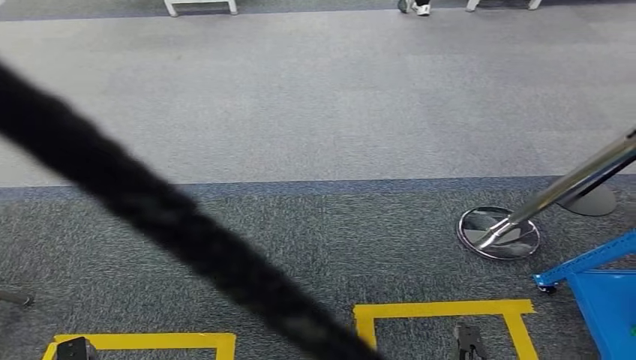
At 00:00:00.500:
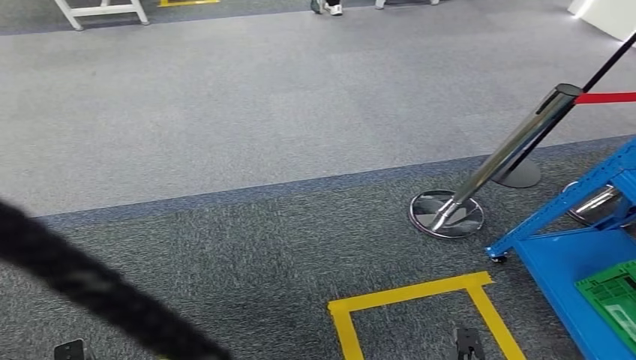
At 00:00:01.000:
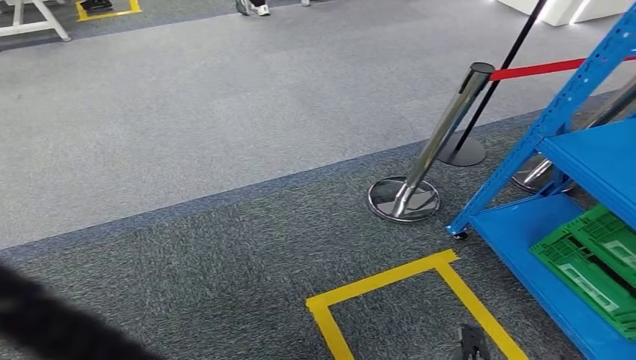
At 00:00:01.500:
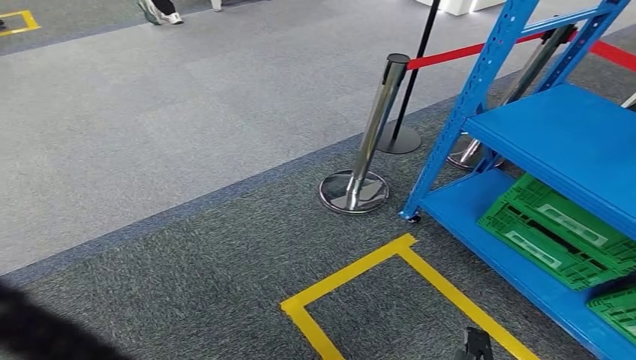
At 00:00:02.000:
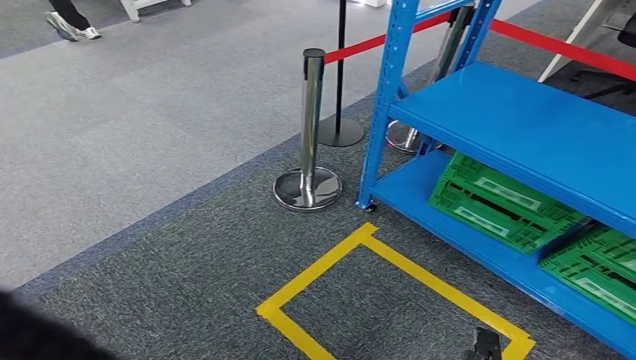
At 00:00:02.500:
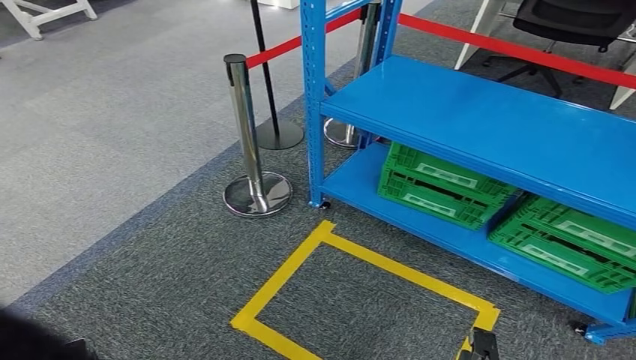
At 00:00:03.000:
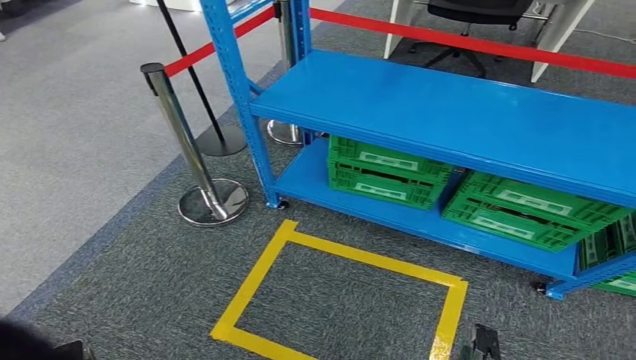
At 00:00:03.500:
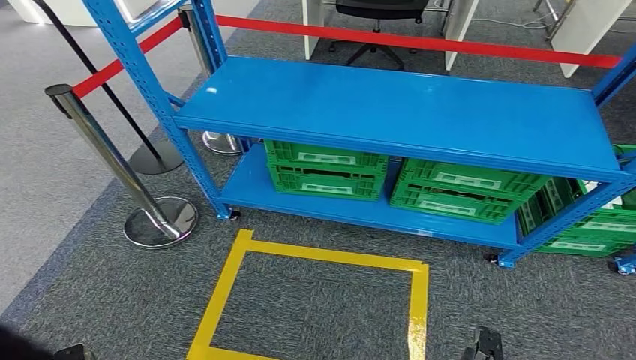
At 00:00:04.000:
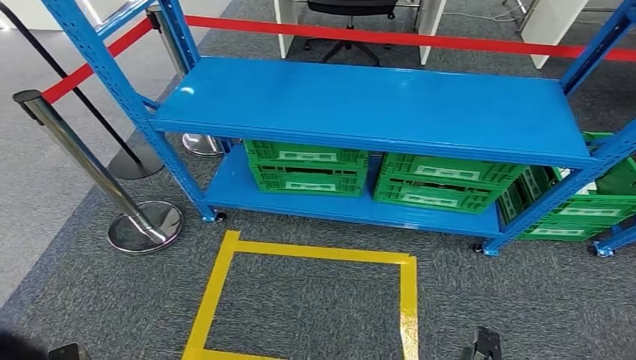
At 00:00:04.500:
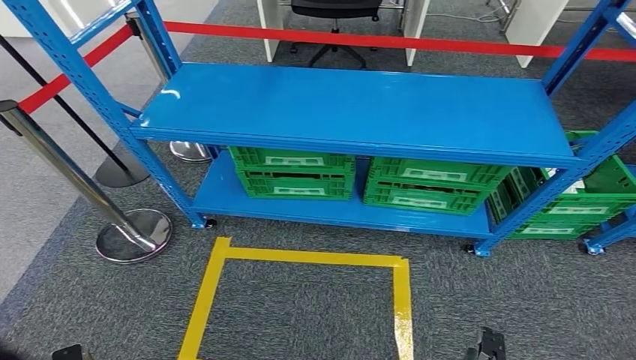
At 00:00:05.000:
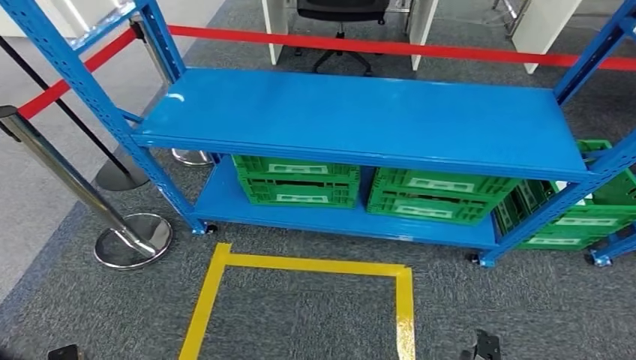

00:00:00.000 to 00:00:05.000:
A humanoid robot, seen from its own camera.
Step, 00:00:00.000 to 00:00:05.000: Move to the initial position of the workbench.

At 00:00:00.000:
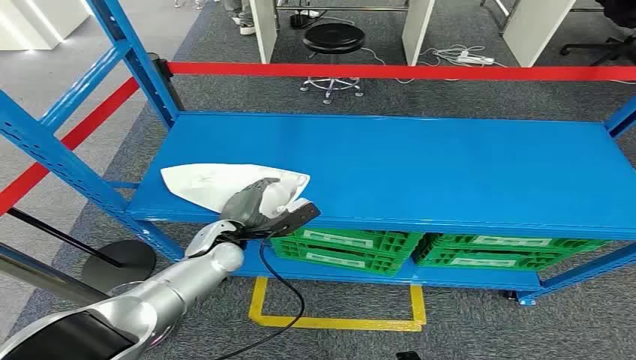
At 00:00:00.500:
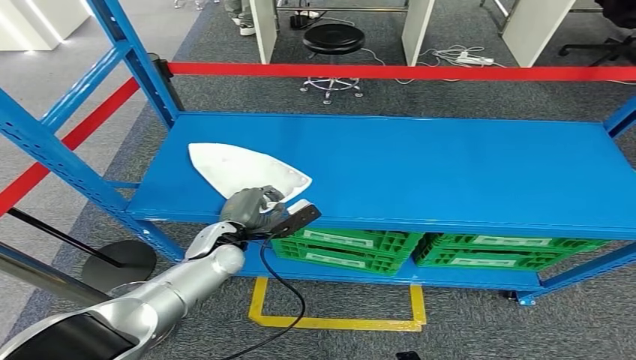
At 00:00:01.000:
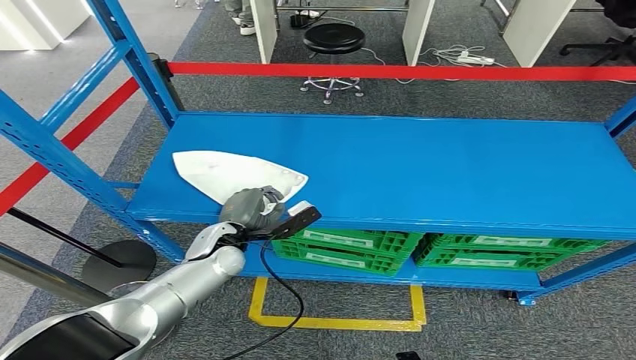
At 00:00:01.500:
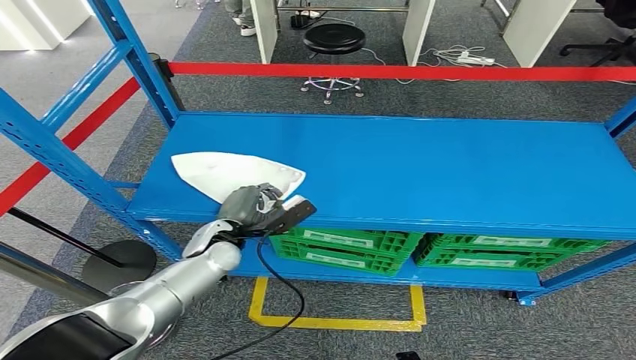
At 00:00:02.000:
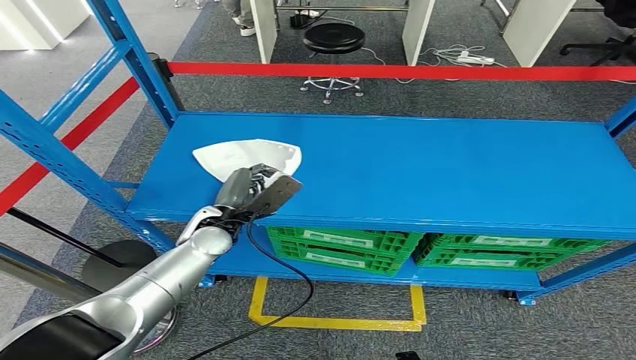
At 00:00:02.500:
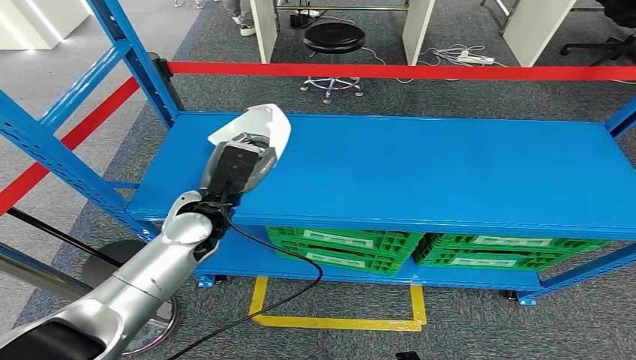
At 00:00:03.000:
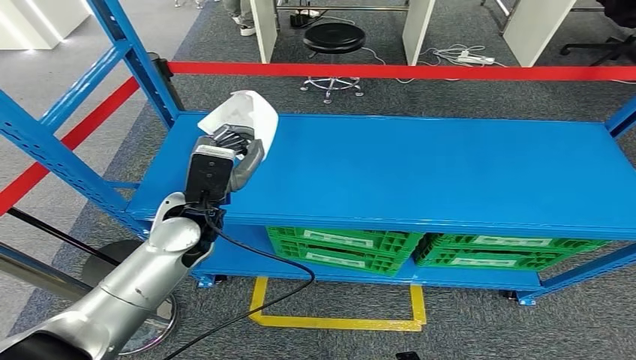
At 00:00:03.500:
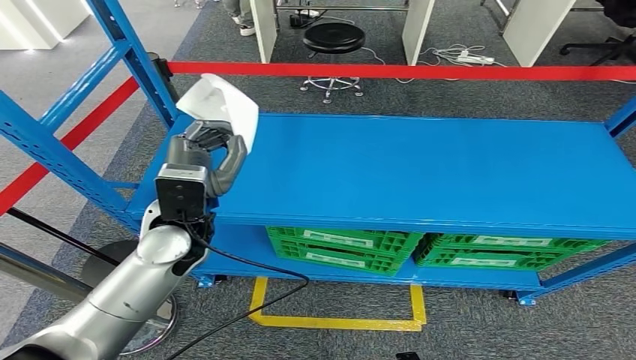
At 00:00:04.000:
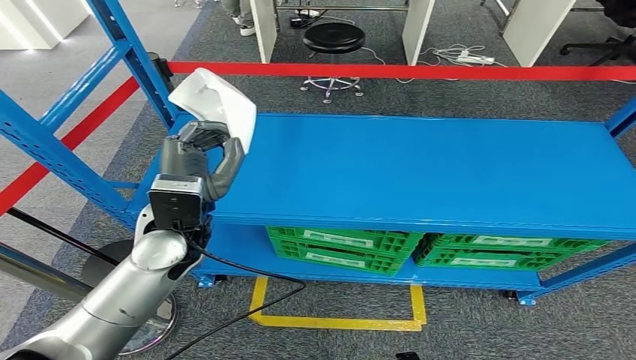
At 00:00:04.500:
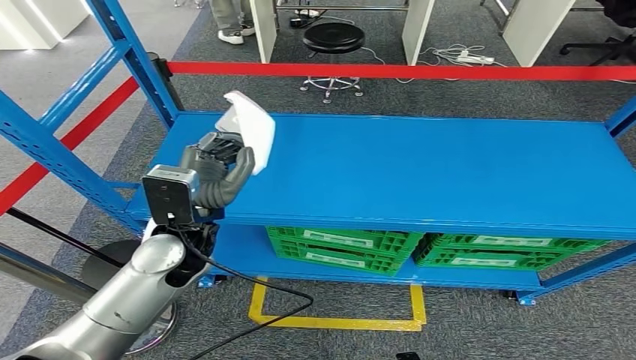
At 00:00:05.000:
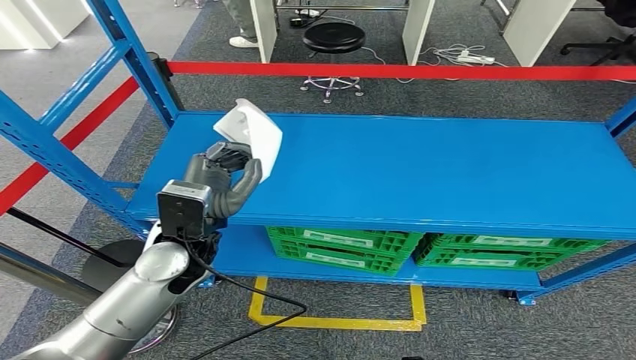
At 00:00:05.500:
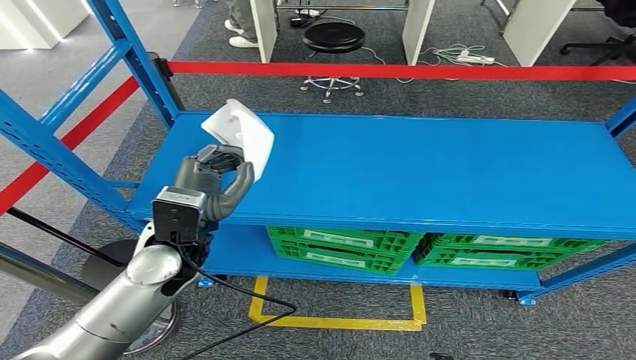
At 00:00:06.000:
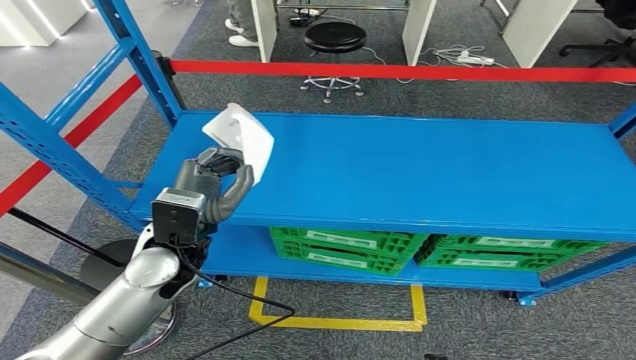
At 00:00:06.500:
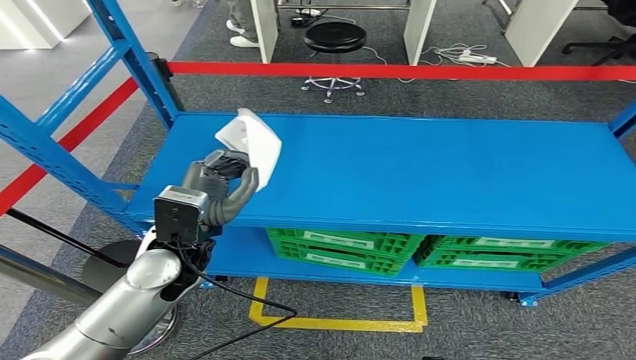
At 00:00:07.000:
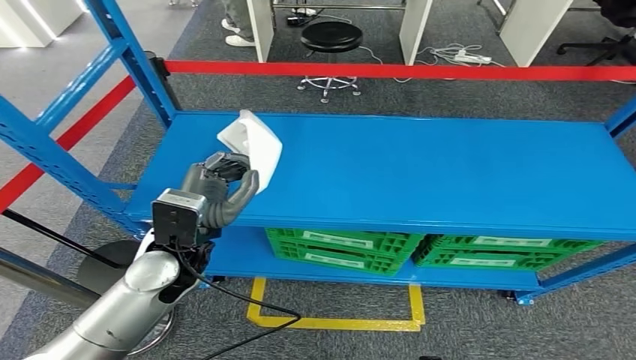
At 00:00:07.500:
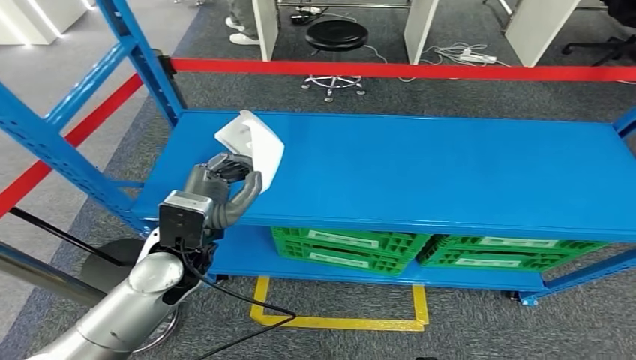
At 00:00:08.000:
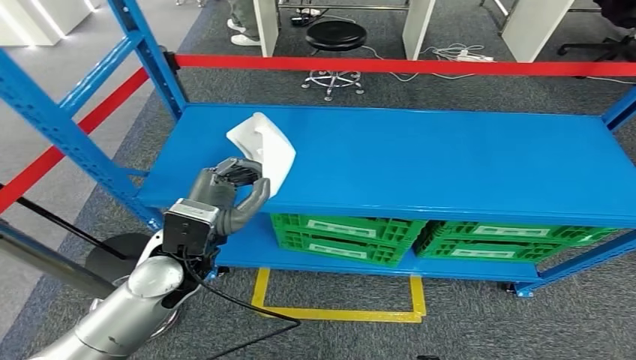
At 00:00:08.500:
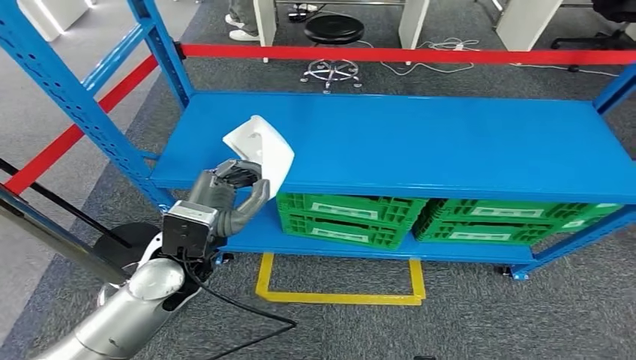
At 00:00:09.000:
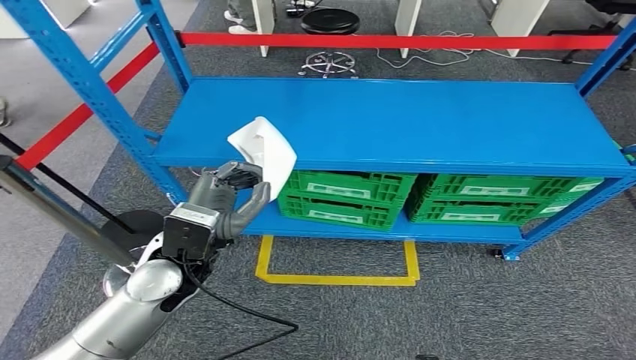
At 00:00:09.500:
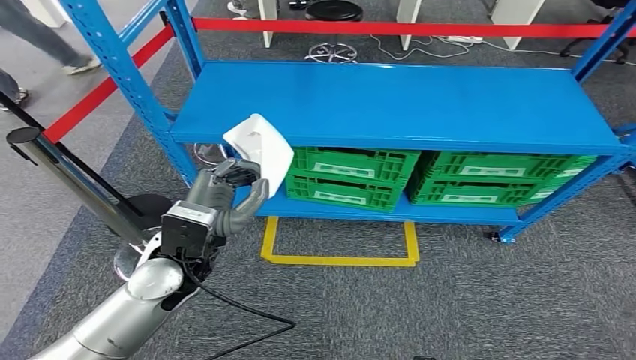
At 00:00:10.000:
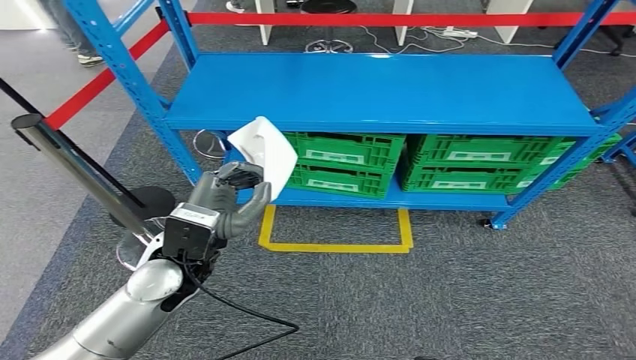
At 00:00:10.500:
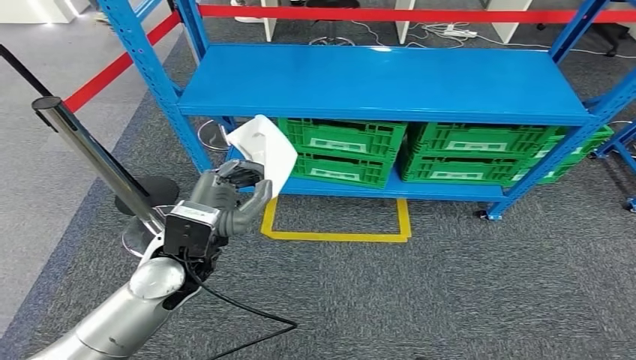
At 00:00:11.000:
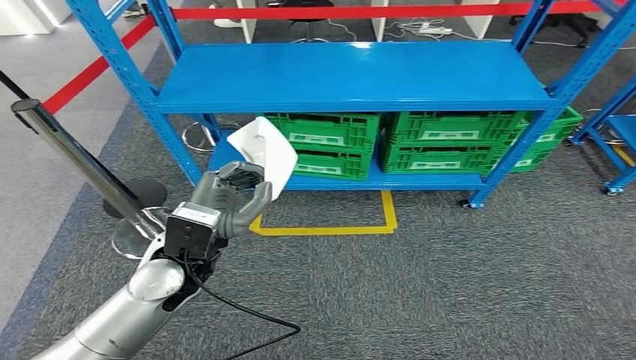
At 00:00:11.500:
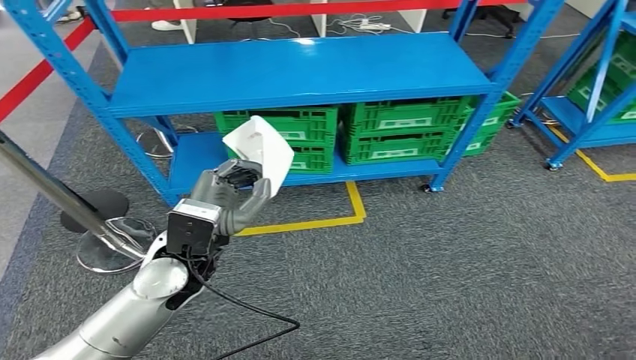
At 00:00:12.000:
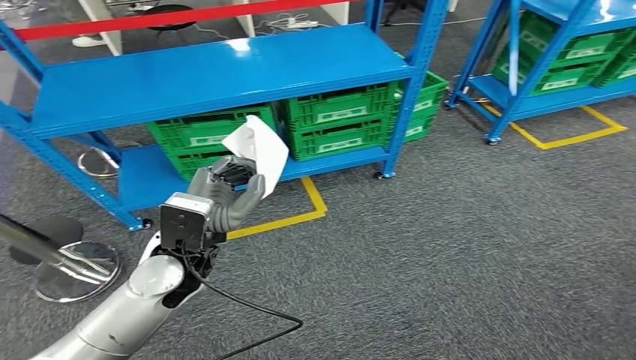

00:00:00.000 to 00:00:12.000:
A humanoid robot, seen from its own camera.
Step, 00:00:00.000 to 00:00:04.000: Take small components from the rack.
00:00:02.000 to 00:00:04.000: The left hand is displaced upward by roughly 10 cm.

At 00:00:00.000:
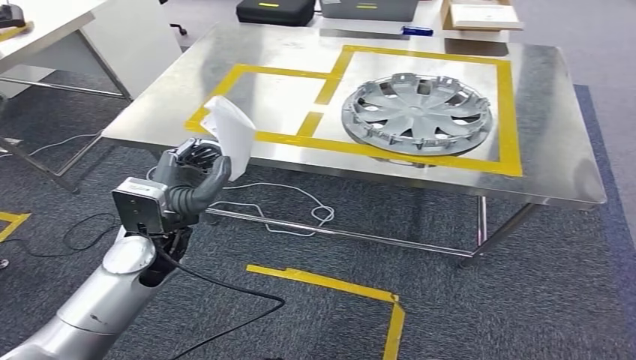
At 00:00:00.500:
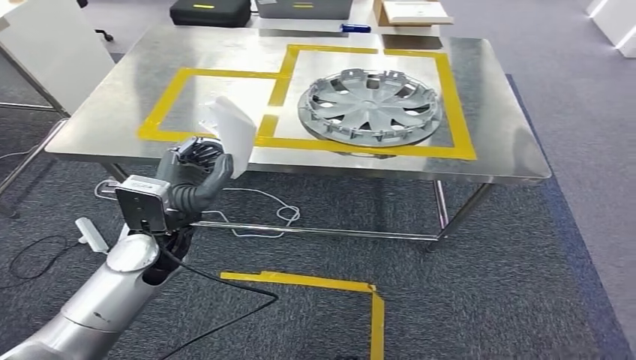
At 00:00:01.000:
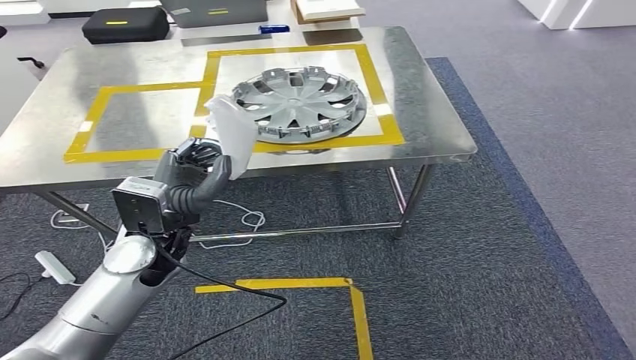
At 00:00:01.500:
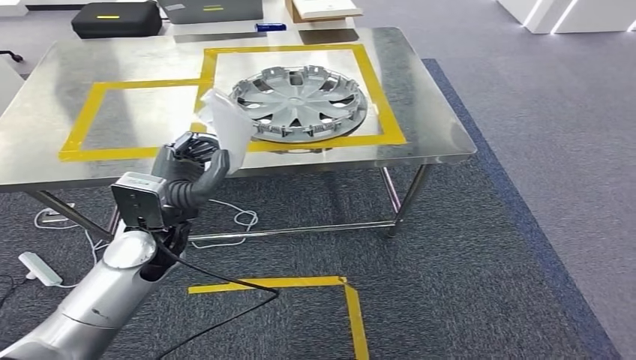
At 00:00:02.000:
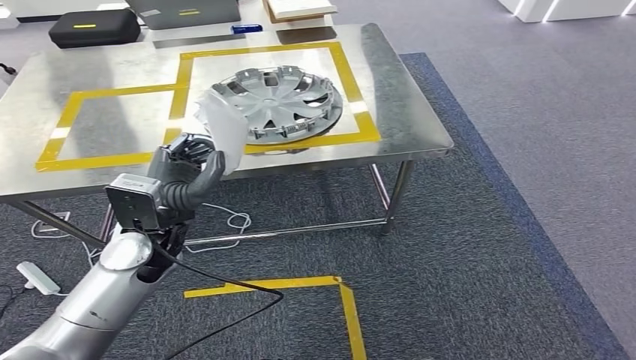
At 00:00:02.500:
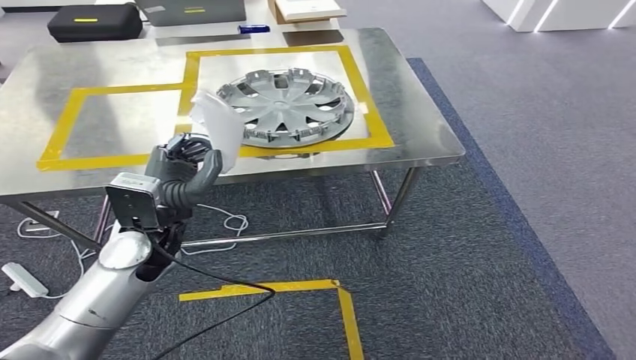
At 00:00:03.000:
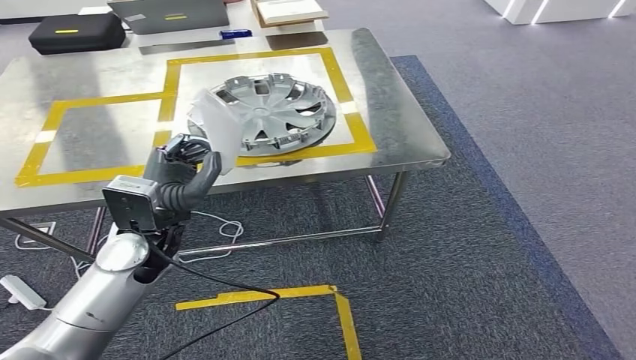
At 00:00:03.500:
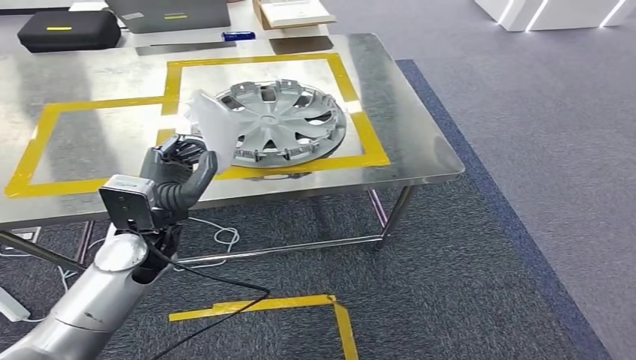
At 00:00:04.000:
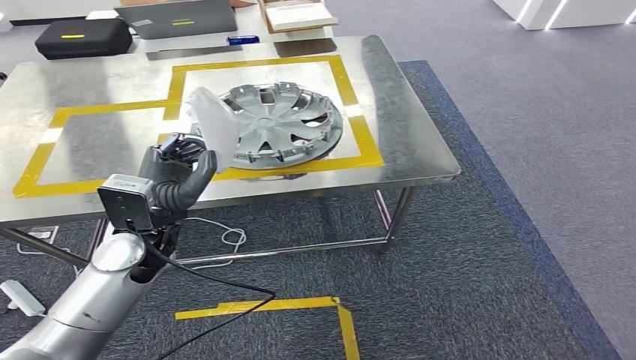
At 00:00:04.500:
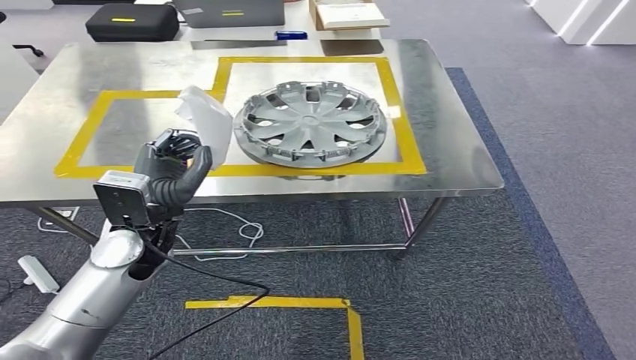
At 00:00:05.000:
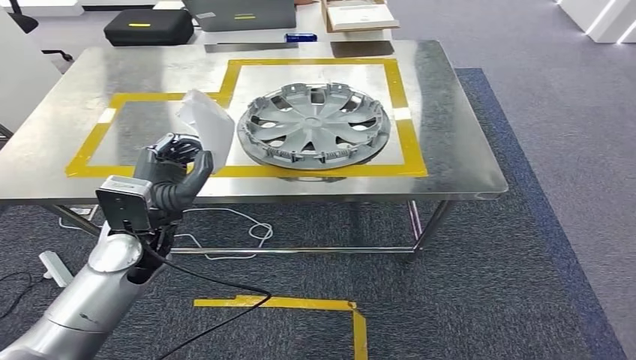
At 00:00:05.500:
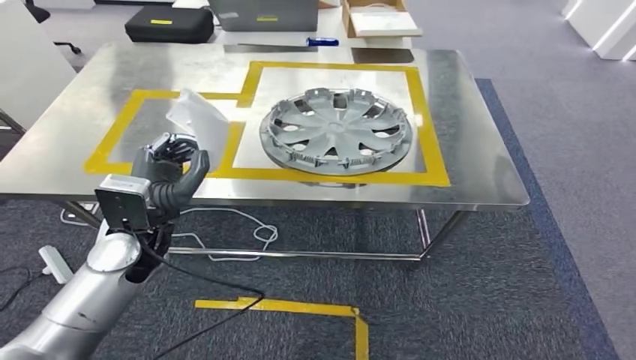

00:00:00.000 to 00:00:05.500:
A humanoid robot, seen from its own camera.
Step, 00:00:00.000 to 00:00:02.500: Move the small parts to the workbench.
